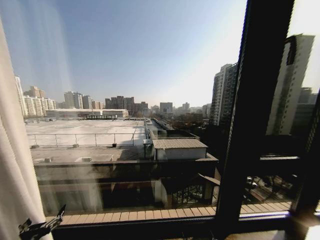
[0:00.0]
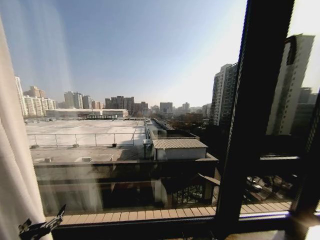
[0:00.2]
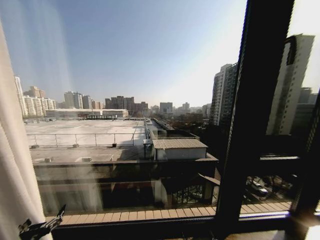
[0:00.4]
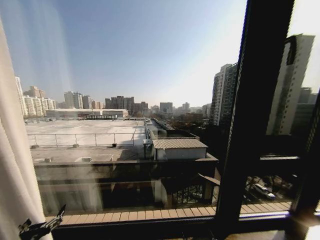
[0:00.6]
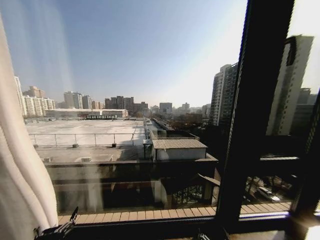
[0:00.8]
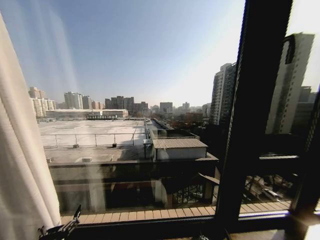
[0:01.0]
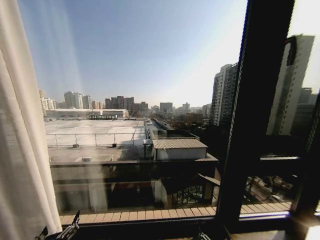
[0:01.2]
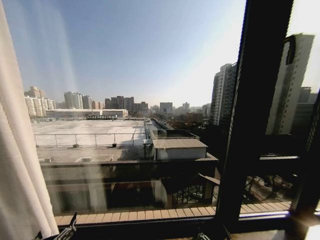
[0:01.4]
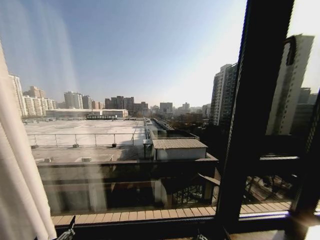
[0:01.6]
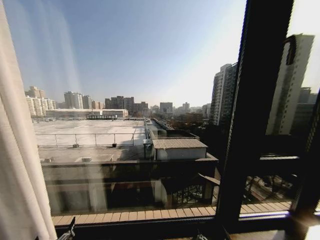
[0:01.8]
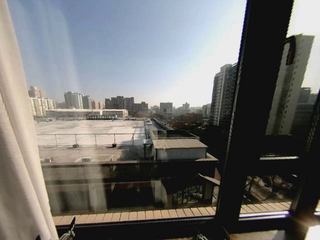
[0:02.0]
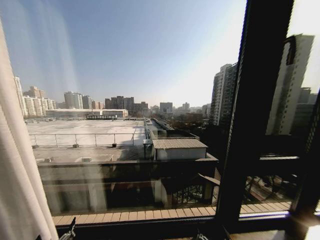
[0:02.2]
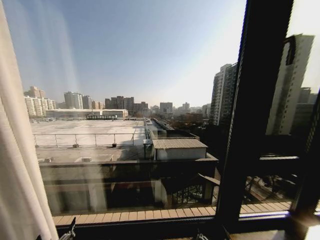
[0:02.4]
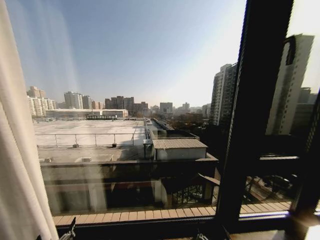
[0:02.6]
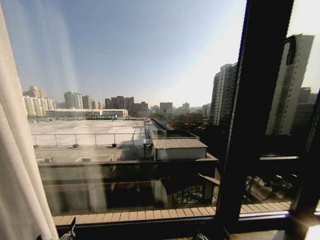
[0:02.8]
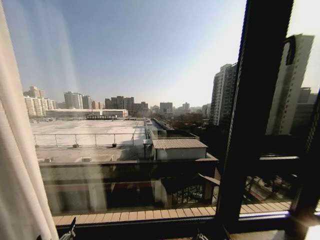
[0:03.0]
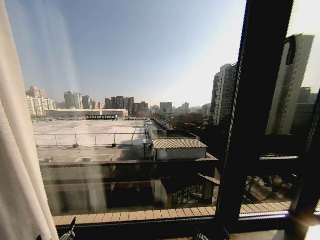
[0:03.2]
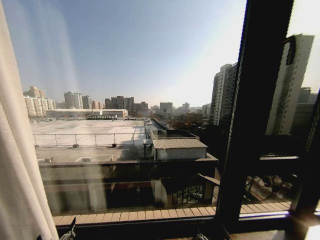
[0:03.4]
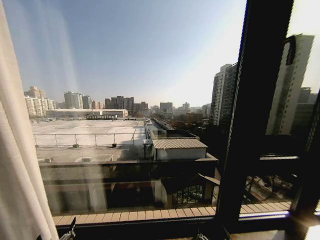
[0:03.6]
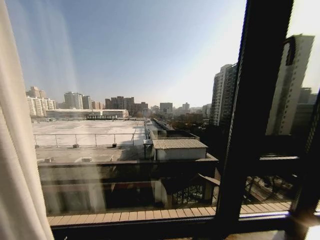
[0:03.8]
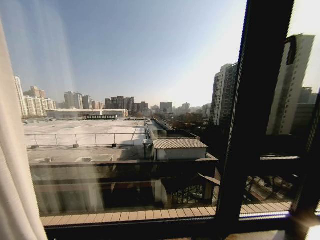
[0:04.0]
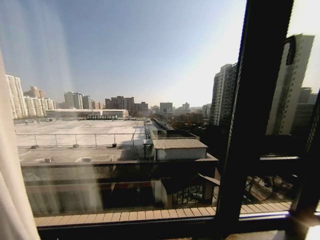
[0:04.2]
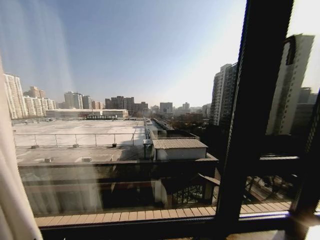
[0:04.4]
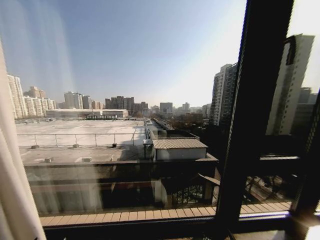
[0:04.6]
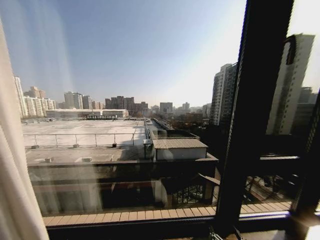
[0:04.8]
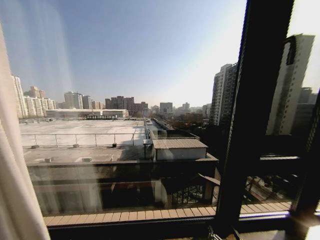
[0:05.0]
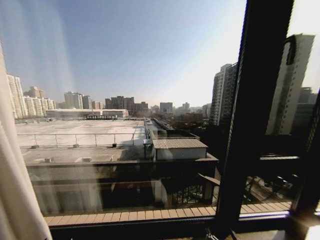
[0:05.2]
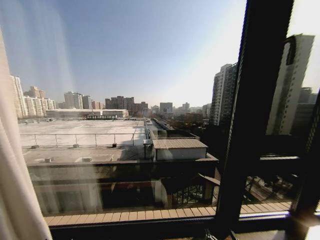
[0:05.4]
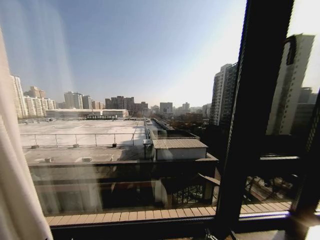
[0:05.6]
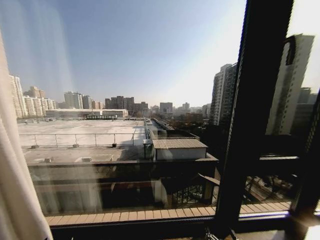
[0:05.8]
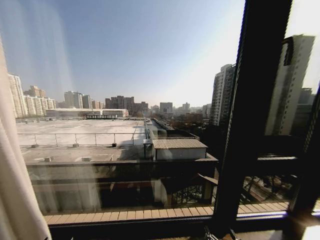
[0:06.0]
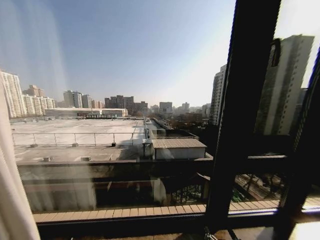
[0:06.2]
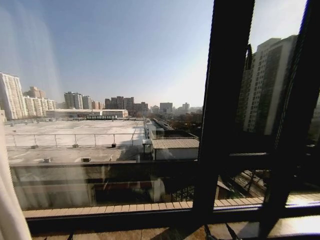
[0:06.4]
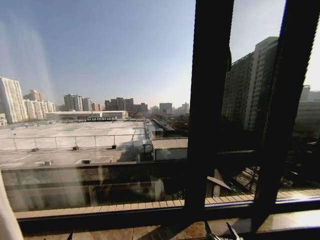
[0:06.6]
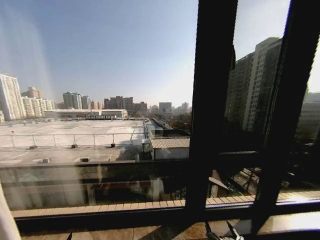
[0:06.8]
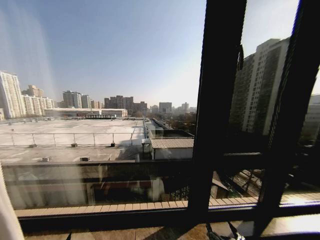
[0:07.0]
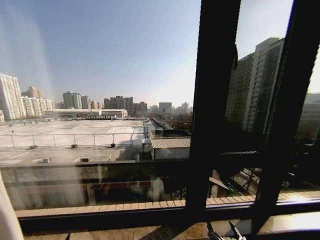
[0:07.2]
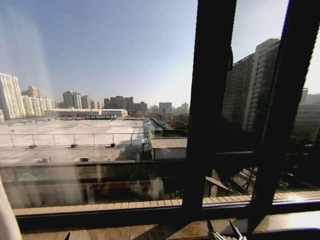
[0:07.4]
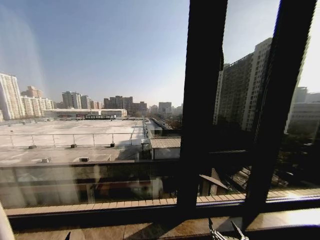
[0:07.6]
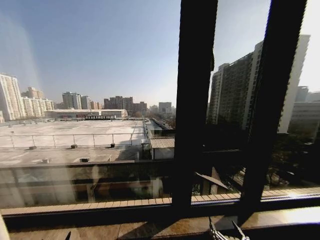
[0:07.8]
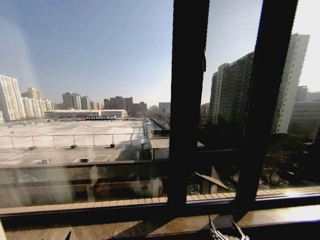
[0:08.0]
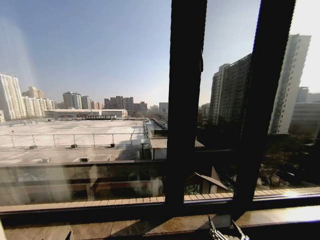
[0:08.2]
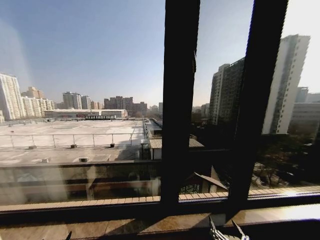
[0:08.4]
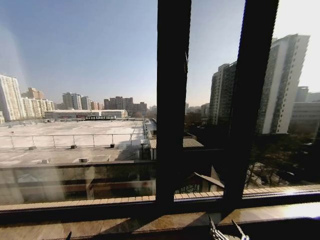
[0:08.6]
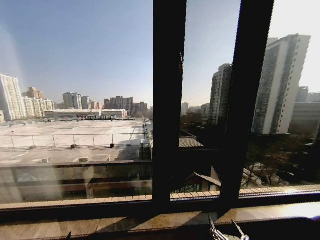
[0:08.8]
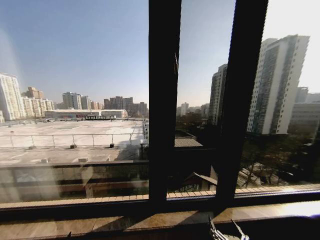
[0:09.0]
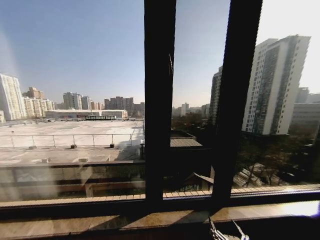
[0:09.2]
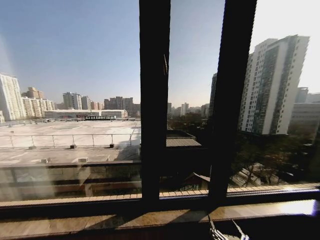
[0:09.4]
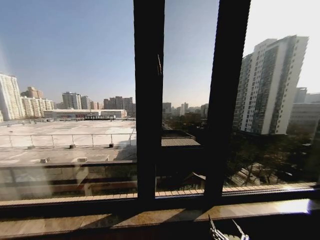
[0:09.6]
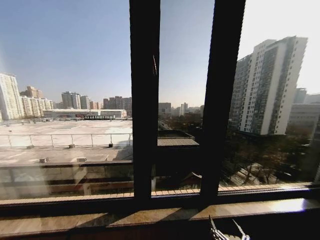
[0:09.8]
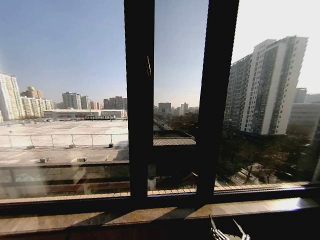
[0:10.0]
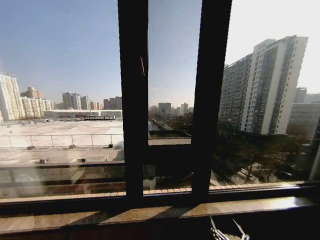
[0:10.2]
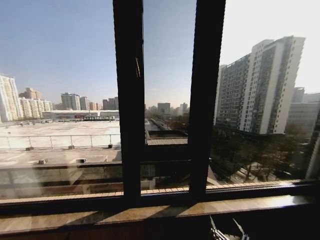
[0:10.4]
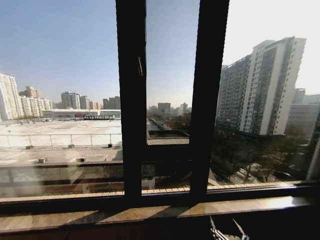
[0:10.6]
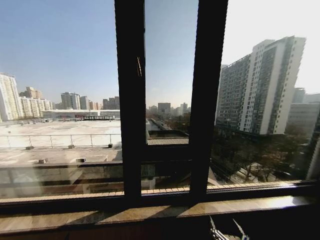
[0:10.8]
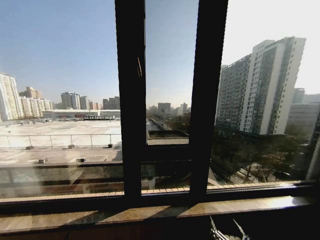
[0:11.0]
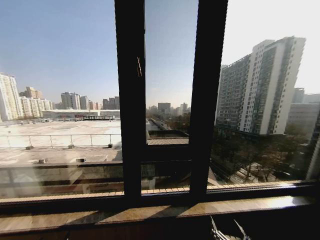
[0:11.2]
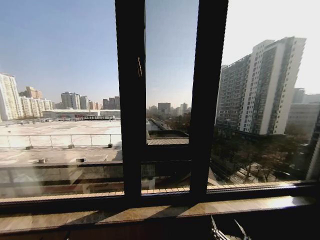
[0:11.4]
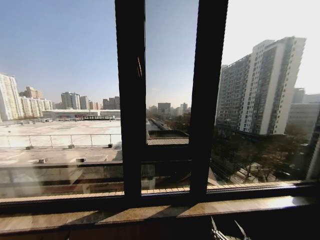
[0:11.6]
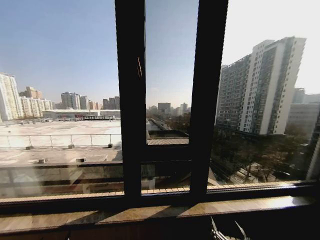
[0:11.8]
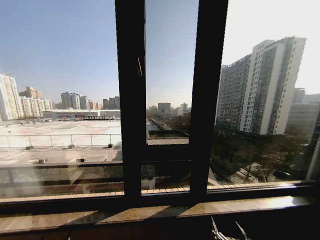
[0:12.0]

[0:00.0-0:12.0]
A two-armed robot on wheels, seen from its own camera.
Task of the whole recording: Open the curtains by pulling them apart, changing their state from closed to fully open.
0:00.0 to 0:01.6: The left gripper is displaced to the right by roughly 10 cm.
0:01.6 to 0:03.0: Both grippers stay put.
0:03.0 to 0:04.4: The grippers stay close to where they were, moving slightly.
0:04.4 to 0:06.0: The right gripper moves to the right, about 5 cm.
0:10.4 to 0:12.0: Both grippers stay put.

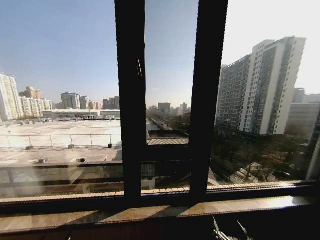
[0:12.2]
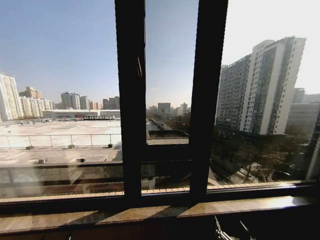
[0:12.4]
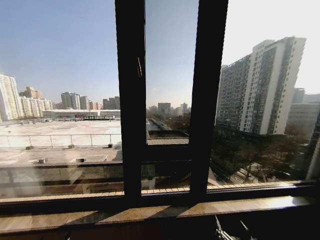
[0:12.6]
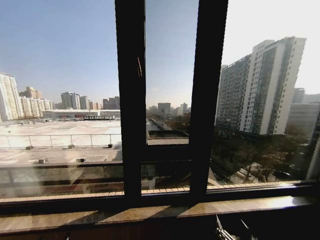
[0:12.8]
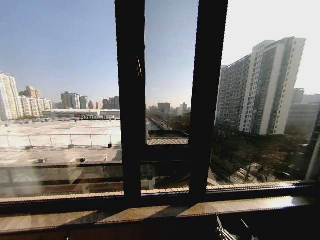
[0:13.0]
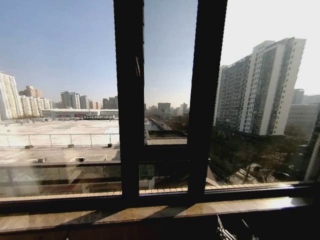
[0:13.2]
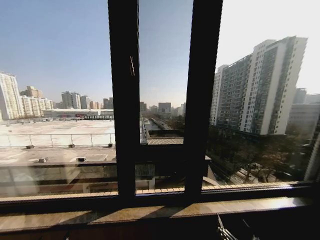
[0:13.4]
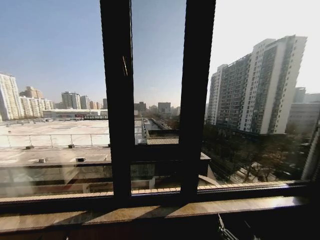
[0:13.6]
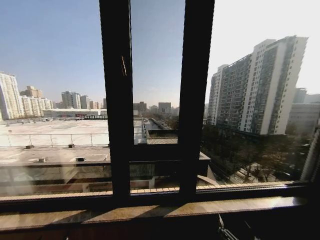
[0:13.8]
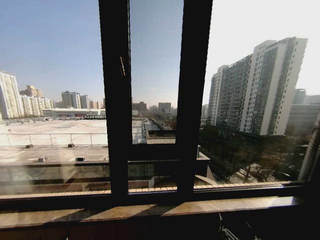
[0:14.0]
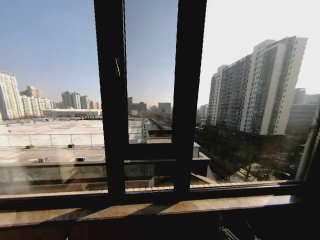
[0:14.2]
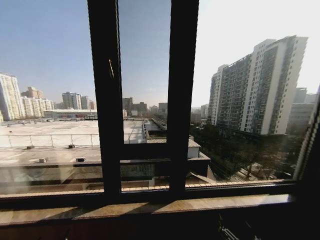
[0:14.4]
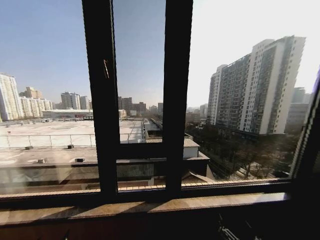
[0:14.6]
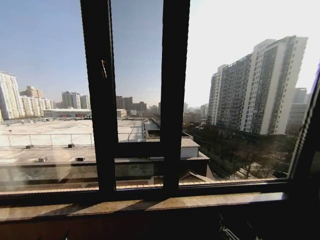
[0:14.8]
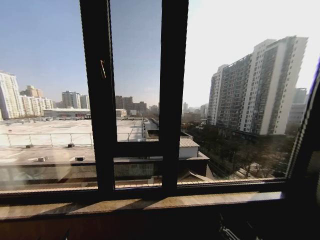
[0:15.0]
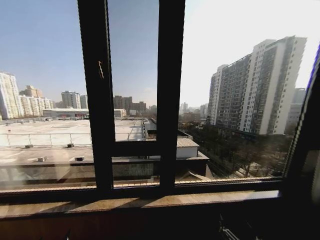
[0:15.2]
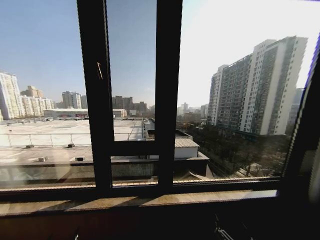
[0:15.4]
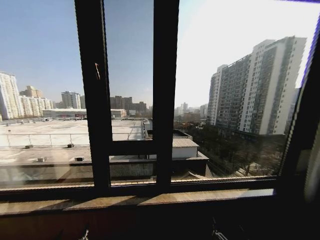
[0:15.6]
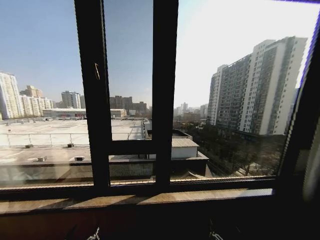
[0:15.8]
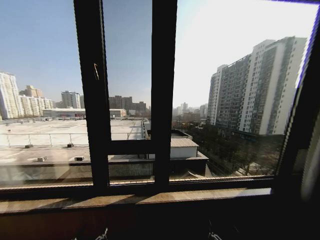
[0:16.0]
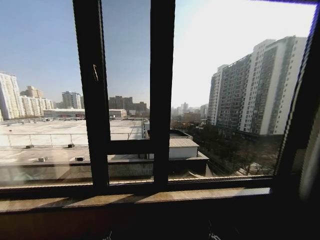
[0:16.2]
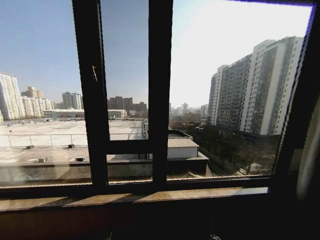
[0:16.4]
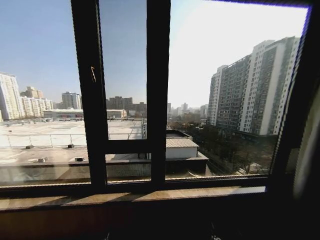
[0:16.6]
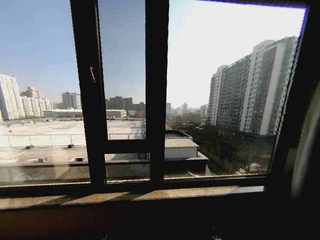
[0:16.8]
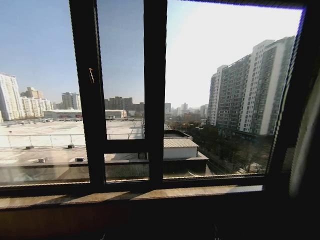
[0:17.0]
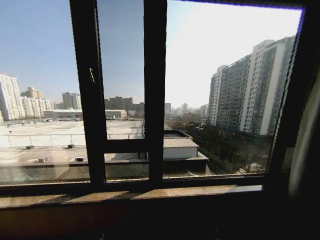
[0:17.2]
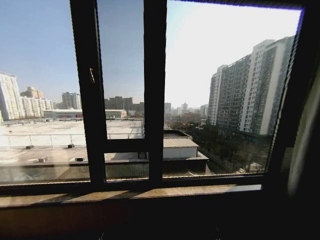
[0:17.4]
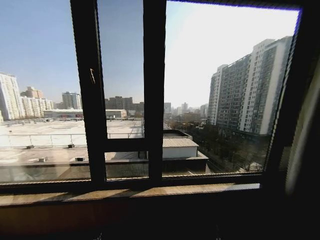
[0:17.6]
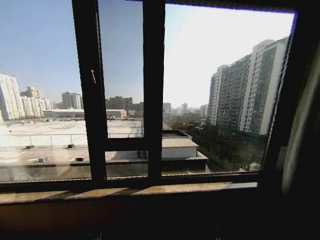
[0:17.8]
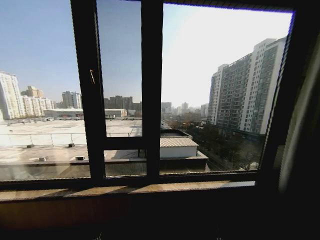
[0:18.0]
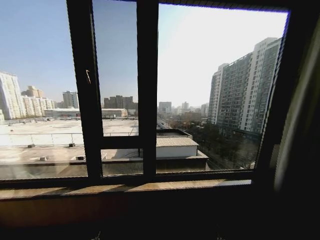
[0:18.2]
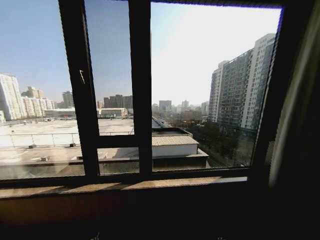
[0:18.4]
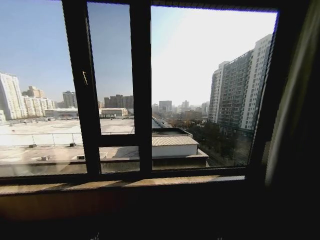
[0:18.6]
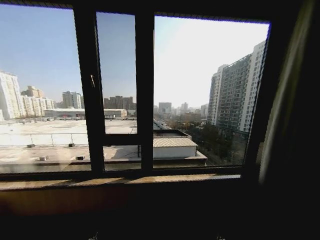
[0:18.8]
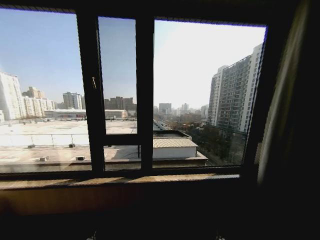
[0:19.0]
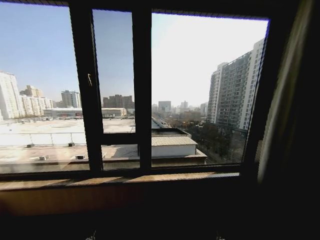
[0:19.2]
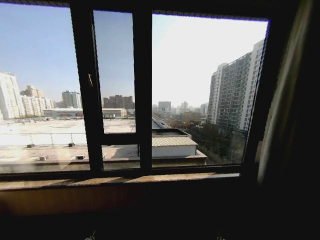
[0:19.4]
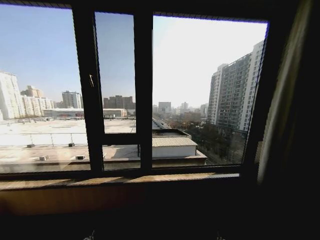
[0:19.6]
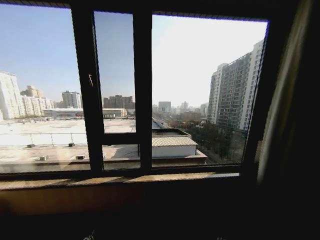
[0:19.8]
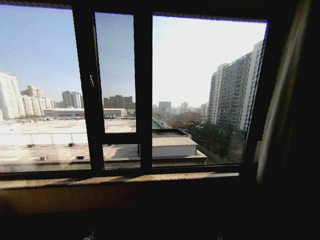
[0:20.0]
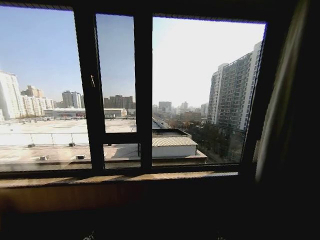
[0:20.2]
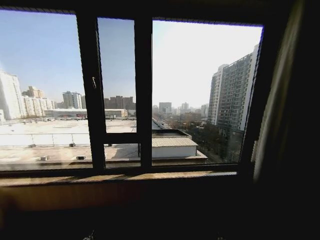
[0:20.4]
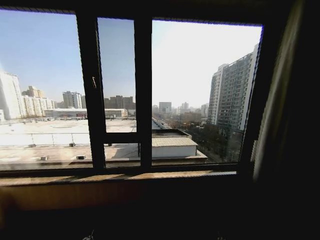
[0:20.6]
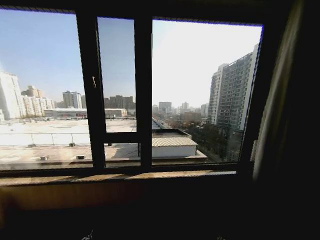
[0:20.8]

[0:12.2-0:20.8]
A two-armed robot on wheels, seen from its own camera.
Task of the whole recording: Open the curtains by pulling them apart, changing their state from closed to fully open.
0:12.2 to 0:13.6: The two grippers keep their place.
0:15.0 to 0:16.6: The left gripper is displaced to the right by about 10 cm.
0:19.4 to 0:20.8: Neither gripper changes place.
